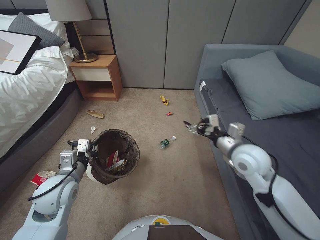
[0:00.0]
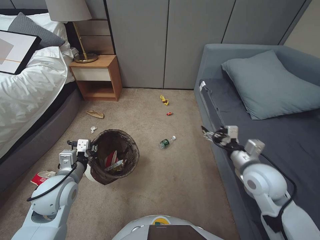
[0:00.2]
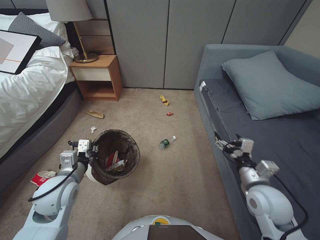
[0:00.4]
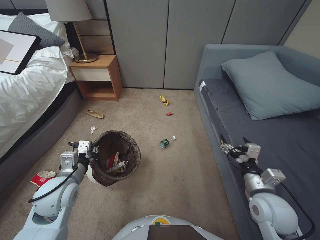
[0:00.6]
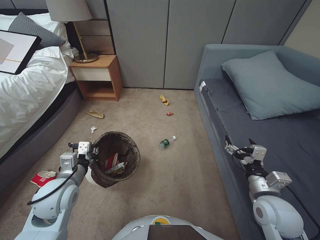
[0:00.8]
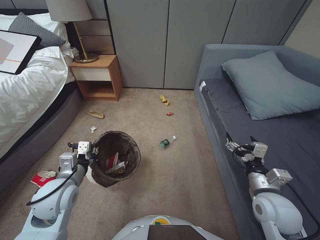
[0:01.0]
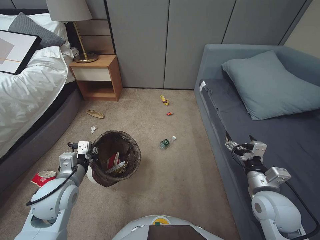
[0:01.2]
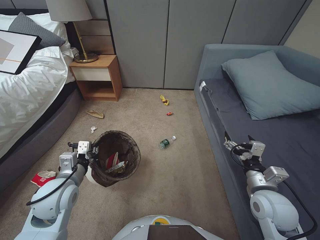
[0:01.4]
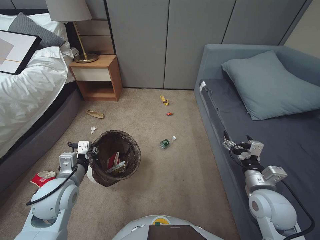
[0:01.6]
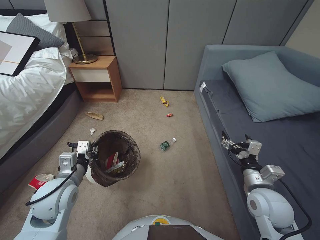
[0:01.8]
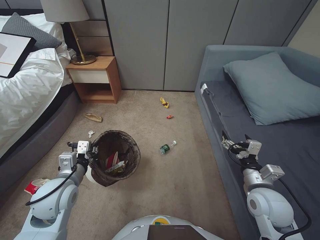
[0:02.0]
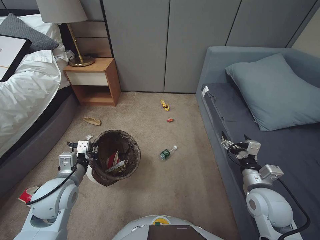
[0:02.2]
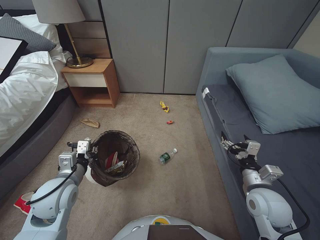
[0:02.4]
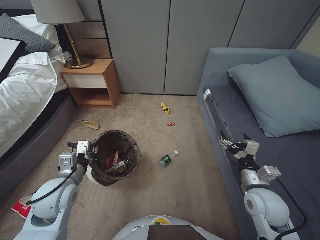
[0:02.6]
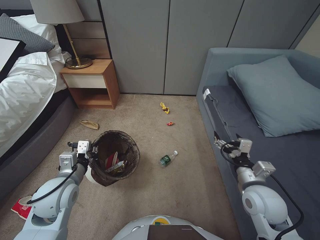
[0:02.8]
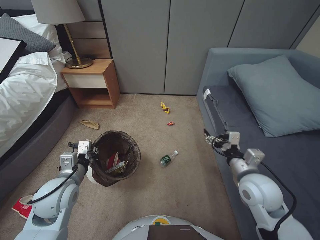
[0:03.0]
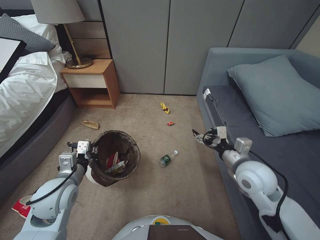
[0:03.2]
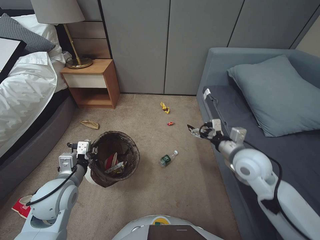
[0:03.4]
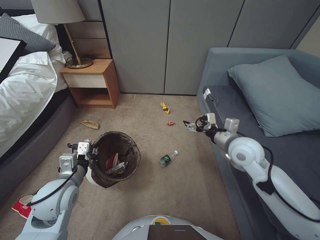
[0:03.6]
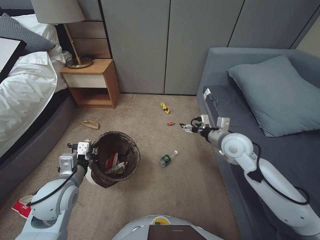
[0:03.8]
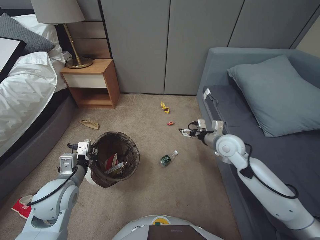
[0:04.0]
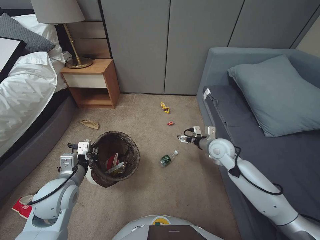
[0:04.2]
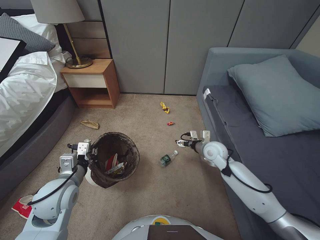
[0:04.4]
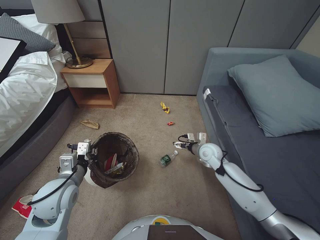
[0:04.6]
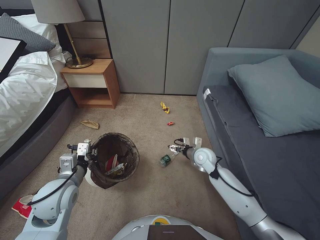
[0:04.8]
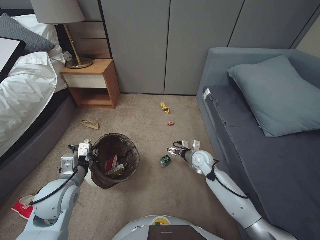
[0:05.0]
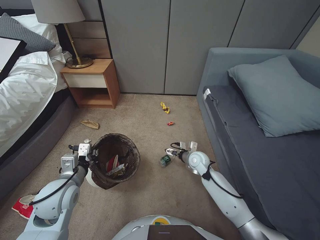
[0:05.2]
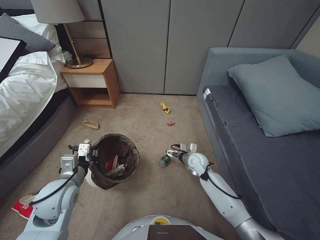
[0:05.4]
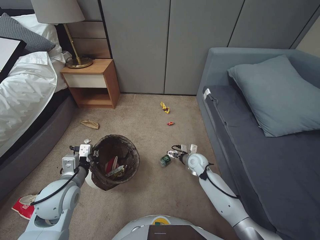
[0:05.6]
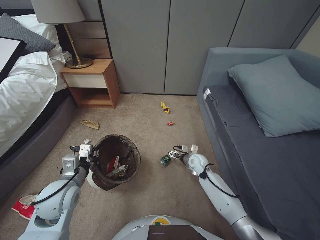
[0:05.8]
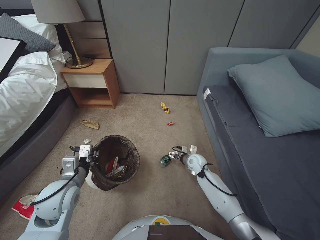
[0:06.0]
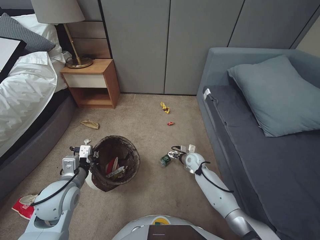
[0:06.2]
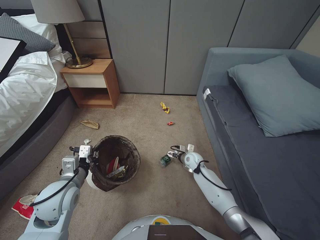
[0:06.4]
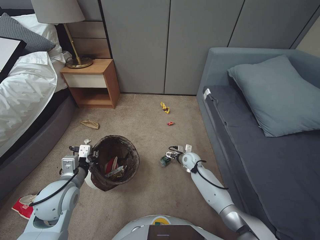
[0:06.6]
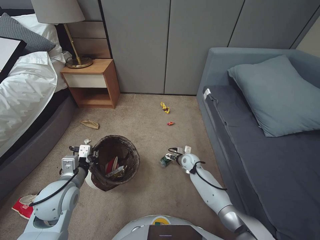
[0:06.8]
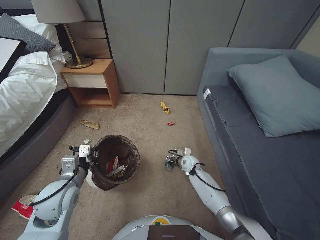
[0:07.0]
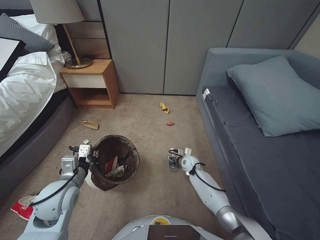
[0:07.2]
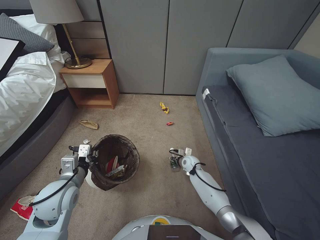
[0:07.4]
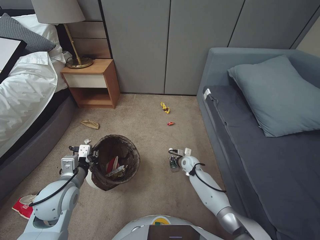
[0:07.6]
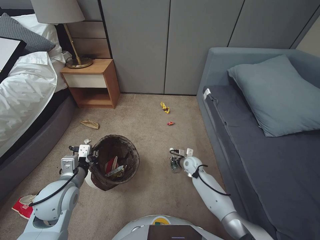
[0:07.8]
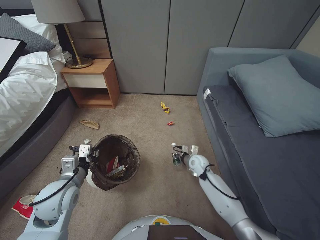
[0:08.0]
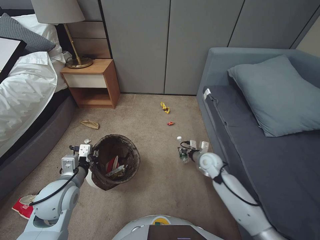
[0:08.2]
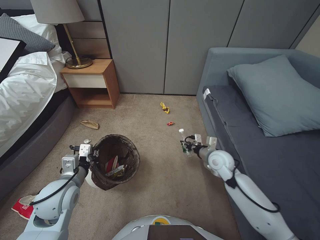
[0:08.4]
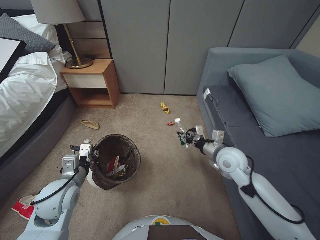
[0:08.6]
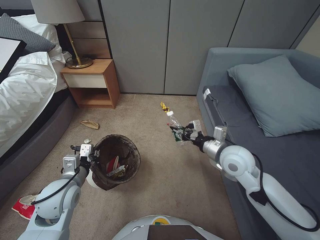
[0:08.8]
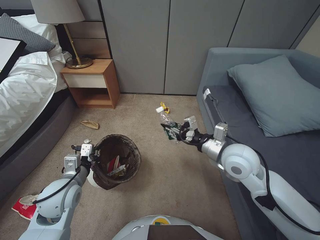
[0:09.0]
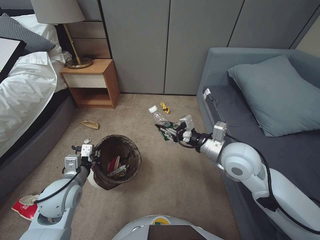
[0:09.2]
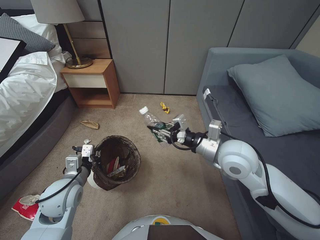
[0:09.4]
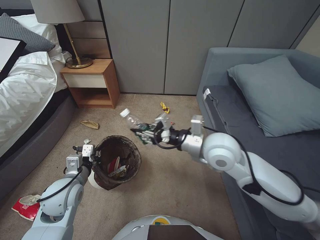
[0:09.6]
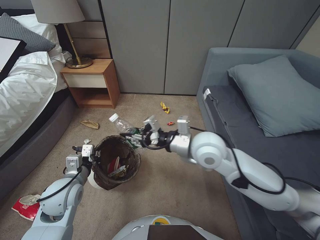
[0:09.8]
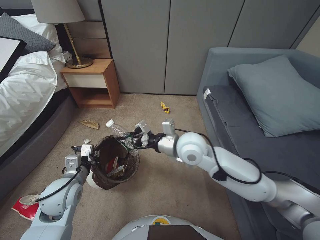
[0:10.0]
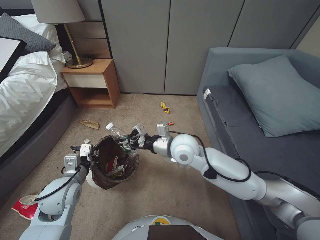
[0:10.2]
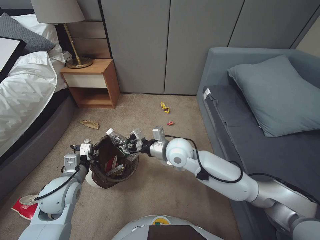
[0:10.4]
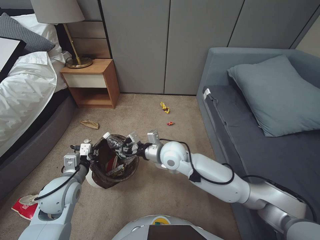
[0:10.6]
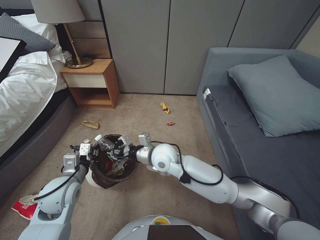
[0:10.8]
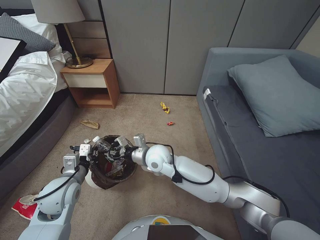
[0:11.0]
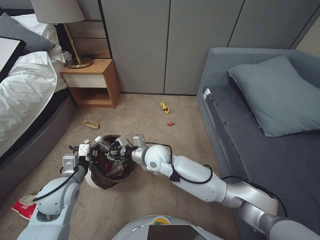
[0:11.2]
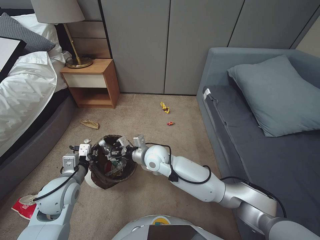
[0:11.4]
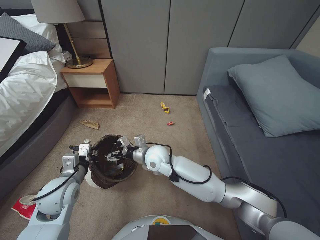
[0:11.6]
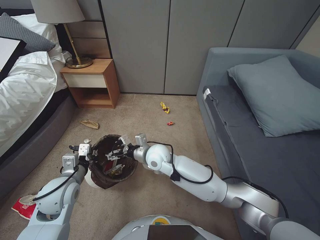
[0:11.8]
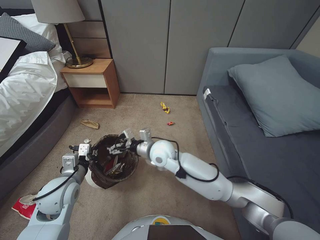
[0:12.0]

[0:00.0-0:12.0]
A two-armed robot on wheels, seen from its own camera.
Task of the whole recording: Pick up the trash bin, then pick up the garbage from the floor and place it into the trash bin.
0:00.0 to 0:01.6: The right gripper goes roughly 15 cm backward, downward and to the right.
0:03.0 to 0:04.4: The right gripper travels forward by roughly 20 cm.
0:04.4 to 0:06.0: The right gripper shifts roughly 15 cm downward.
0:06.0 to 0:07.6: The right gripper travels downward by some 5 cm, and closes up.
0:07.6 to 0:09.0: The right gripper shifts some 35 cm upward and backward.
0:09.0 to 0:10.4: The right gripper shifts some 15 cm to the left.
0:10.4 to 0:12.0: The right gripper travels to the left and downward by about 10 cm, and opens up.

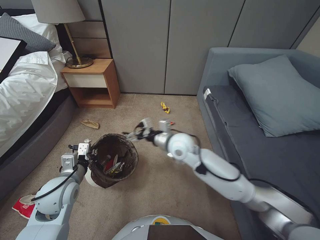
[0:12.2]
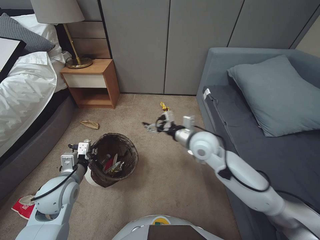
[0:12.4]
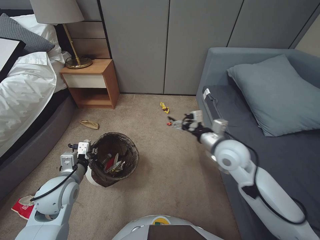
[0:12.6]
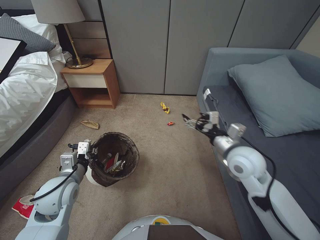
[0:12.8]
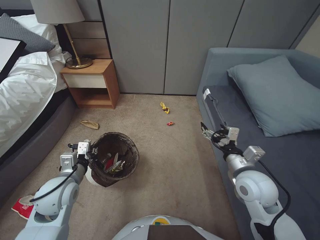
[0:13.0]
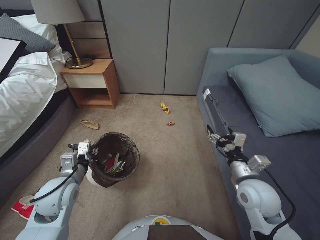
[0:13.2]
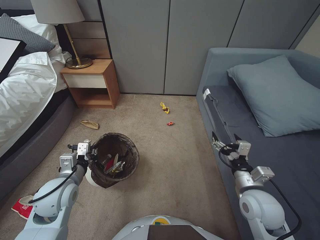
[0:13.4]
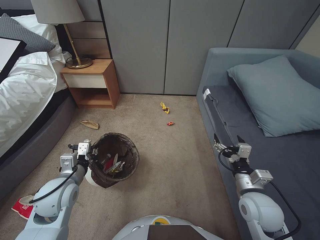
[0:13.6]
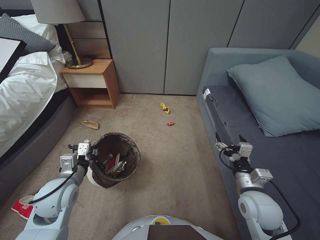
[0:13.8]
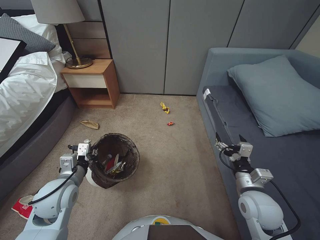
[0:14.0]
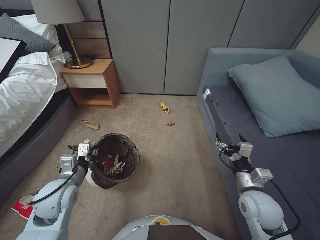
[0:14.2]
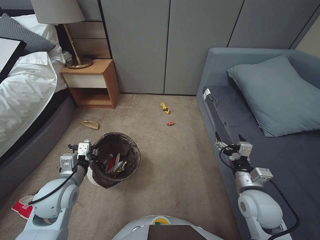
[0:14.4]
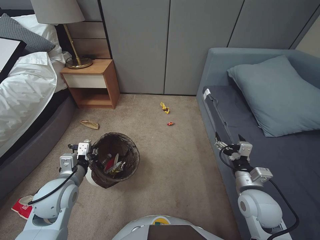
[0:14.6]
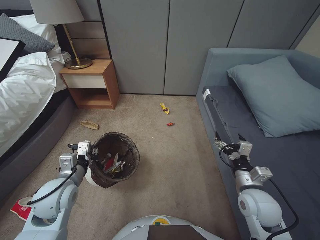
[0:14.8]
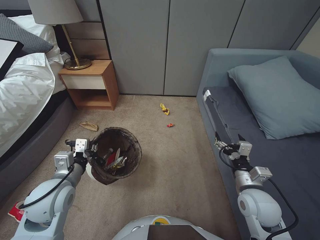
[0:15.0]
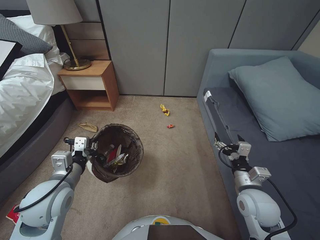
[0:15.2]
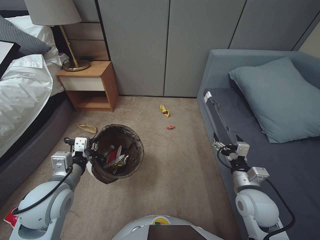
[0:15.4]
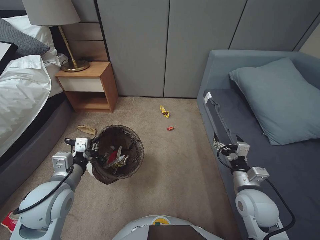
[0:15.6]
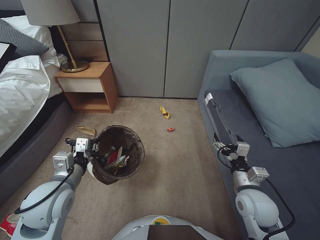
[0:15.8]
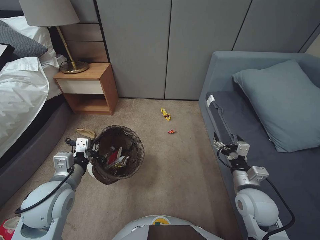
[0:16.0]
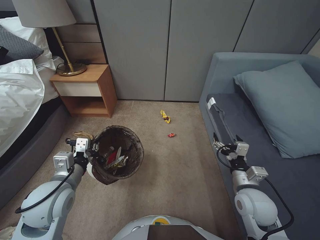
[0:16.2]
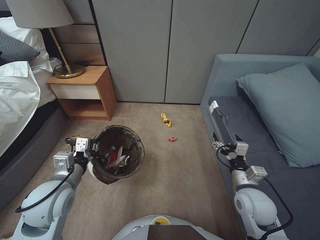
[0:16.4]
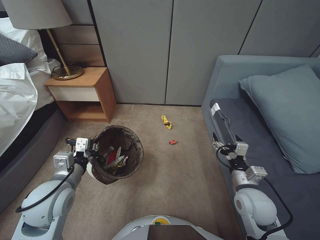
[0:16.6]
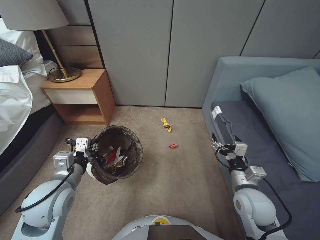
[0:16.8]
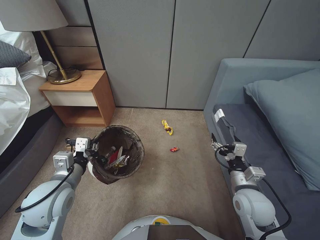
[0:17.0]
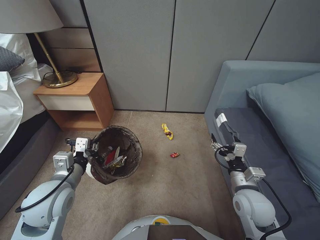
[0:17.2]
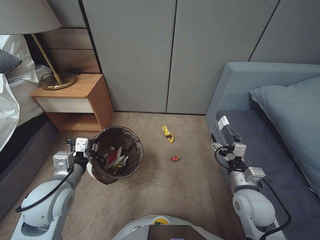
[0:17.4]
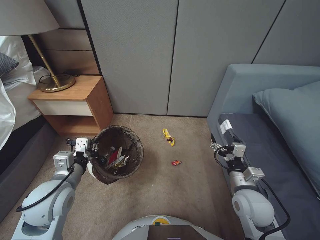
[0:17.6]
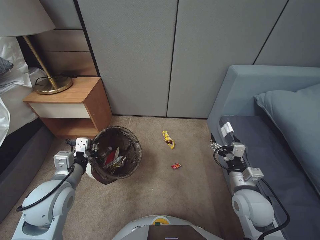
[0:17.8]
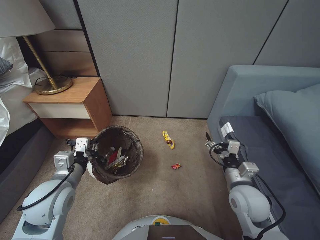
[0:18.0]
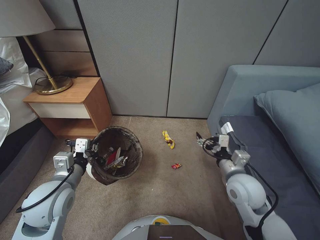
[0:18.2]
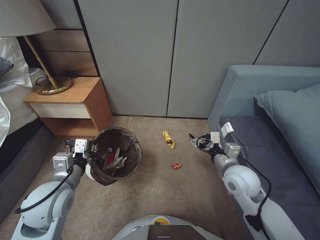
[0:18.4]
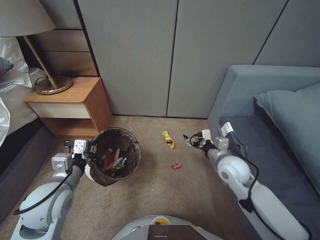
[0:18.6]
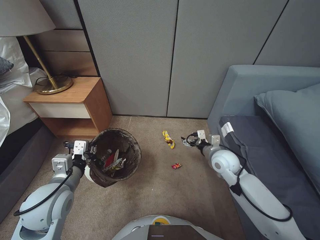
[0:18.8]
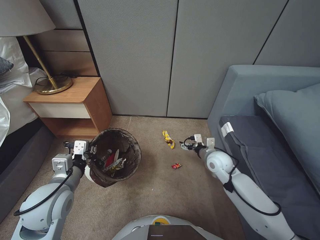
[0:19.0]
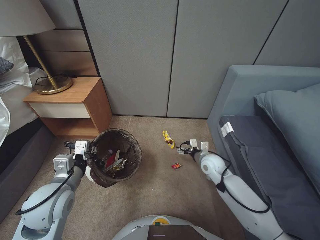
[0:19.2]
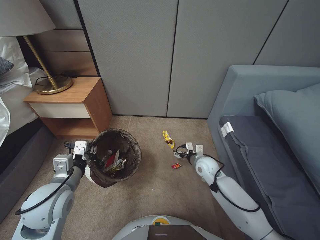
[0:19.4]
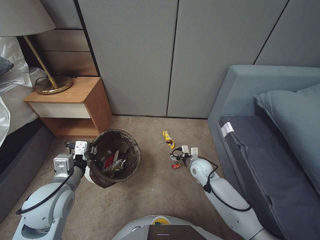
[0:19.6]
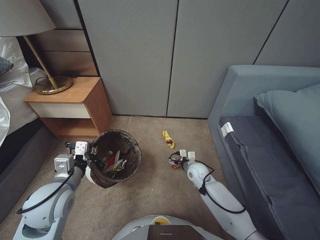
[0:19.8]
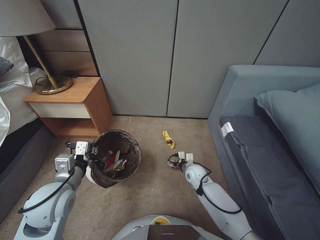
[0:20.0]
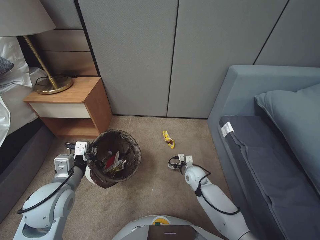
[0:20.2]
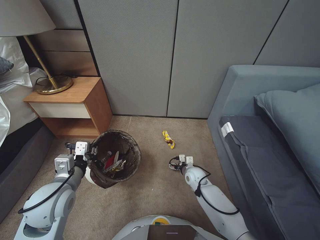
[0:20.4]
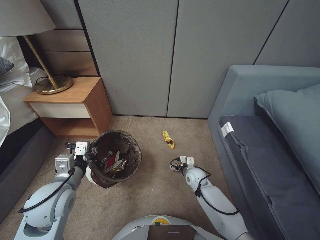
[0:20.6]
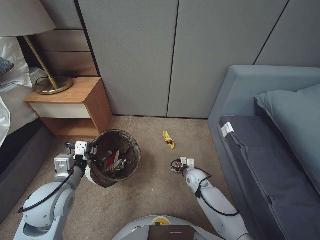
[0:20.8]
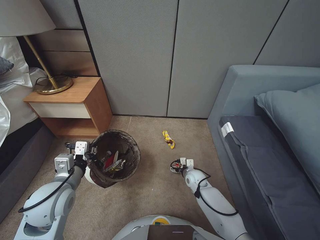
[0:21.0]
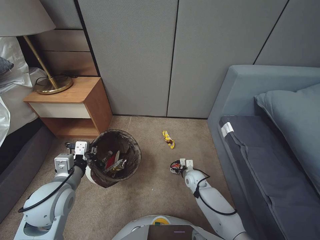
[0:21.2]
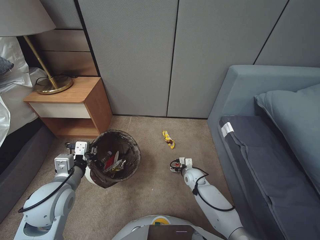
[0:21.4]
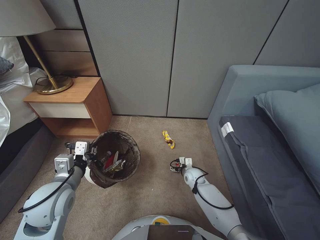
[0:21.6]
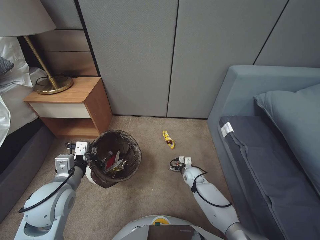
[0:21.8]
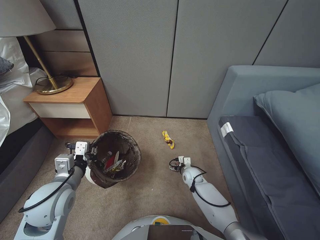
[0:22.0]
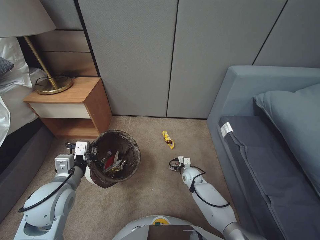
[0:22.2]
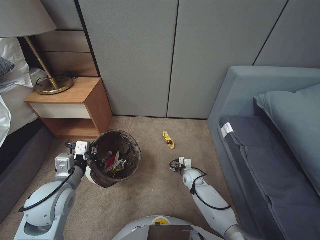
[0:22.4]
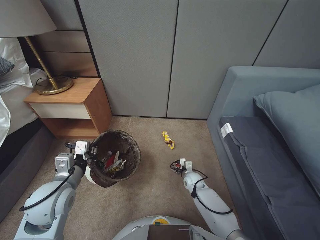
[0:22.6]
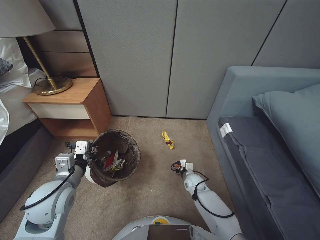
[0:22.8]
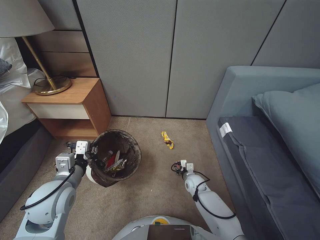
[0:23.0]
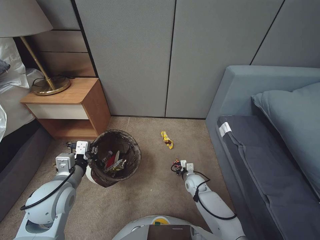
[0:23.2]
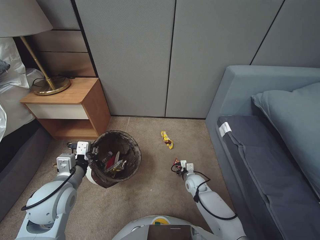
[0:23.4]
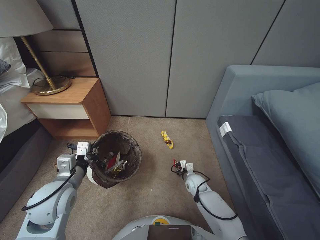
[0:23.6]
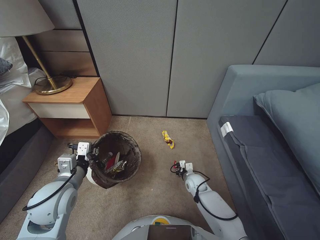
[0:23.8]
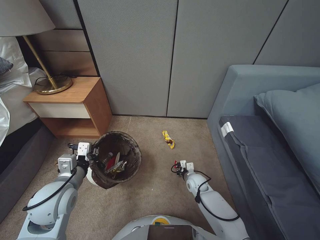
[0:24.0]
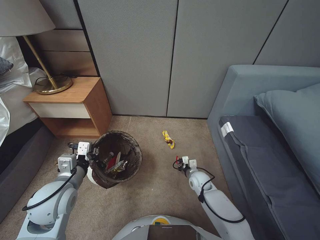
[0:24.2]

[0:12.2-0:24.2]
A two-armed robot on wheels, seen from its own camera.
Task of the whole recording: Pick up the trash bin, then pick up the garbage from the floor and place it into the trash bin.
0:12.2 to 0:13.8: The right gripper moves to the right and backward, roughly 30 cm.
0:13.8 to 0:15.2: The grippers move only a little.
0:18.2 to 0:19.8: The right gripper heads downward, forward and to the left, covering about 20 cm.
0:19.8 to 0:21.2: The right gripper is displaced downward by roughly 10 cm.
0:21.2 to 0:22.6: There are only small adjustments of the grippers.
0:22.6 to 0:24.2: The right gripper closes.
